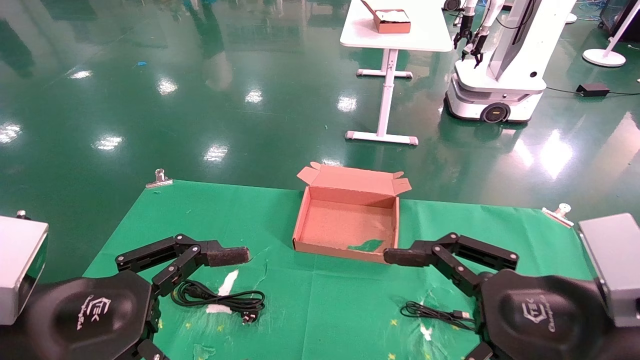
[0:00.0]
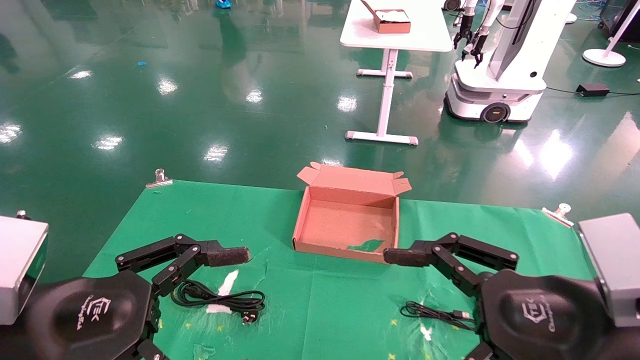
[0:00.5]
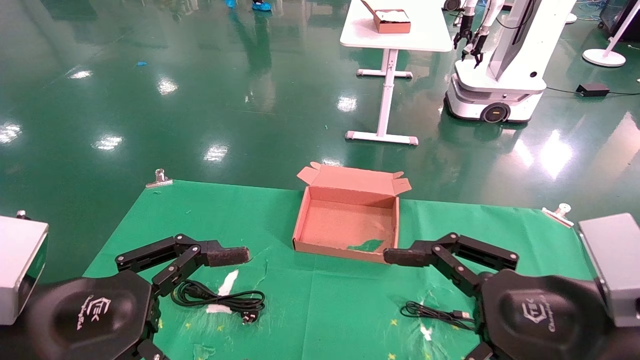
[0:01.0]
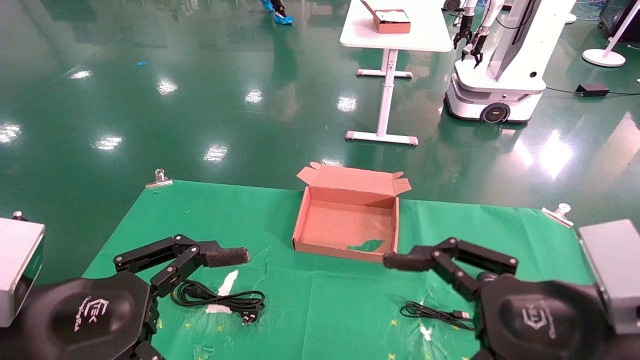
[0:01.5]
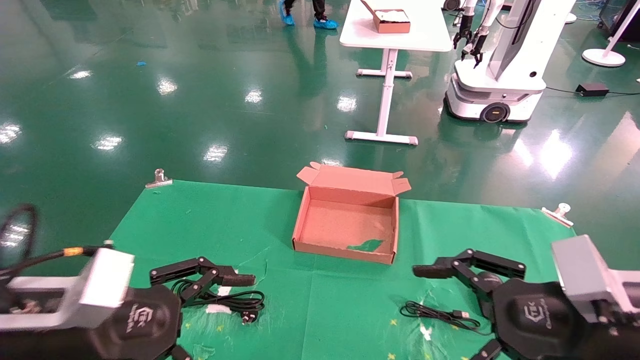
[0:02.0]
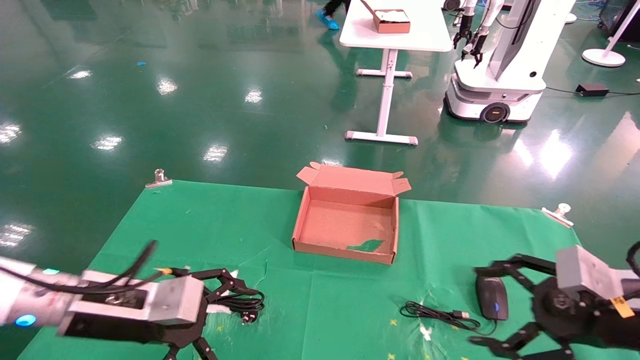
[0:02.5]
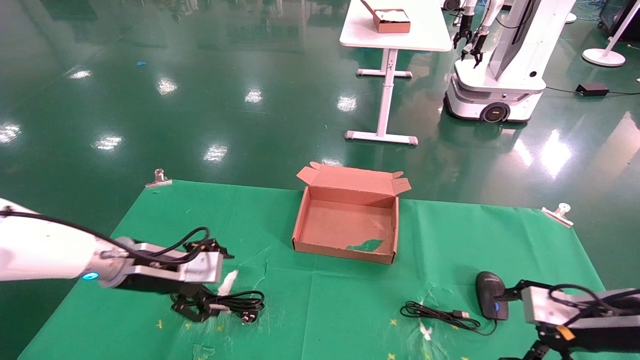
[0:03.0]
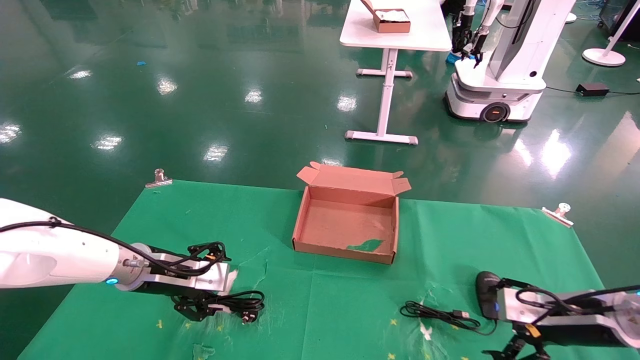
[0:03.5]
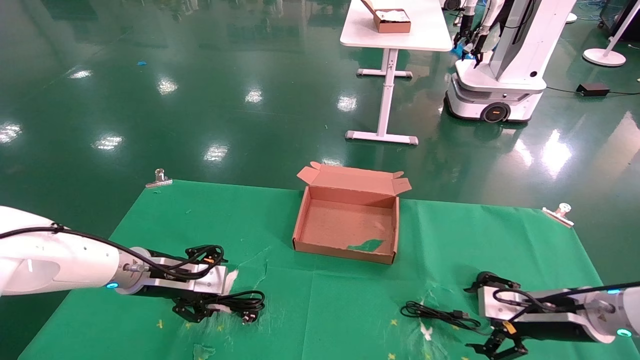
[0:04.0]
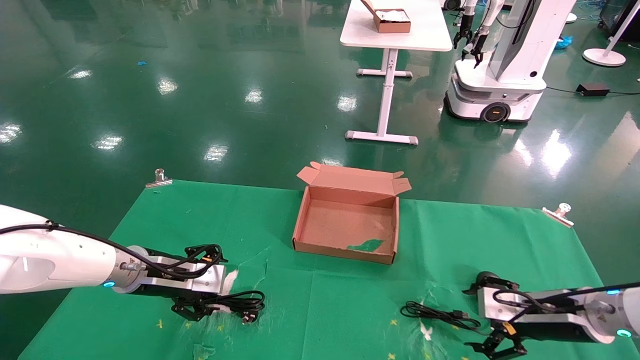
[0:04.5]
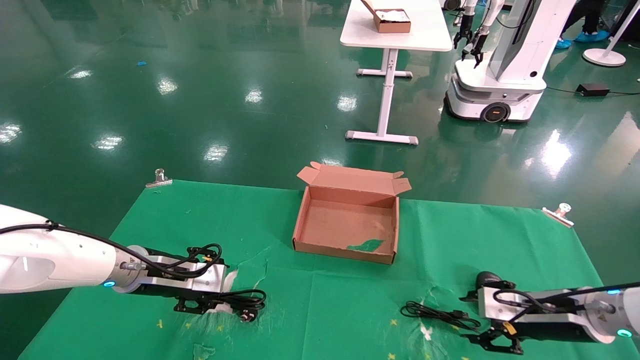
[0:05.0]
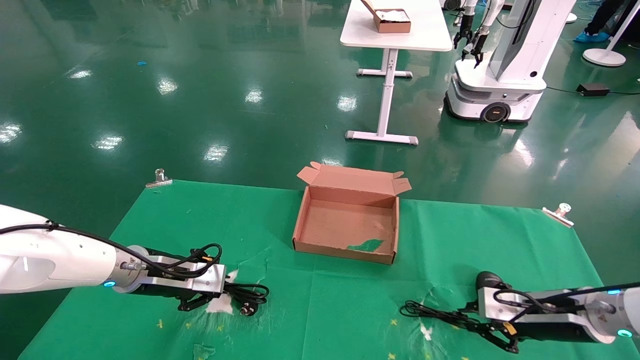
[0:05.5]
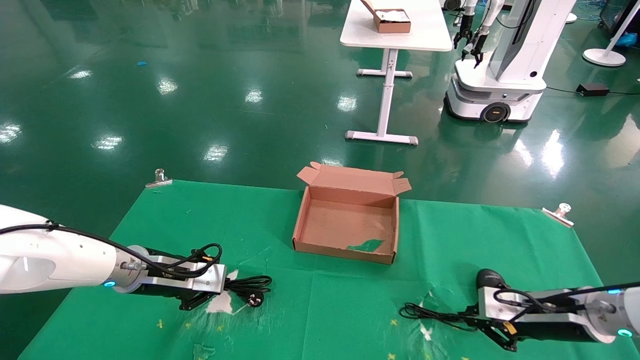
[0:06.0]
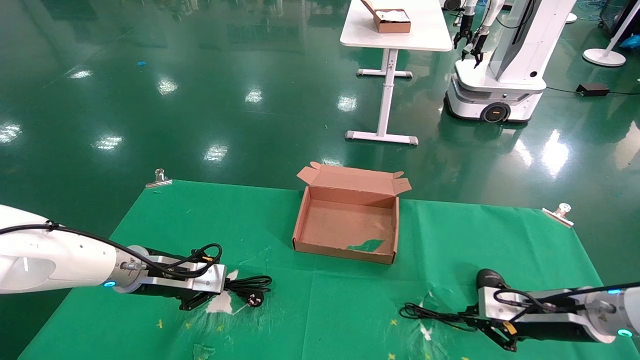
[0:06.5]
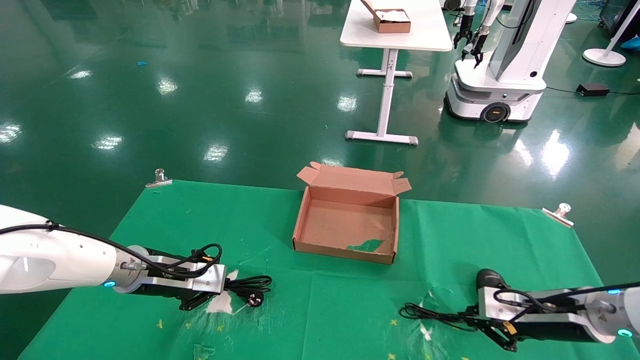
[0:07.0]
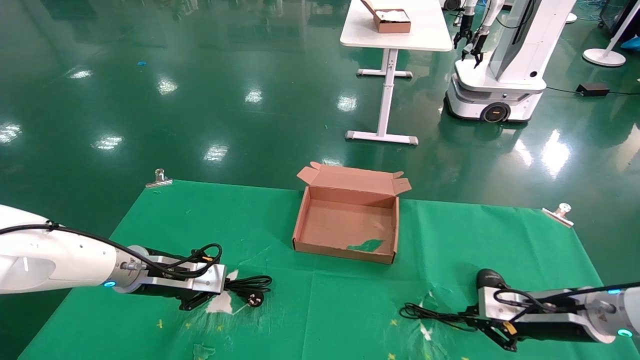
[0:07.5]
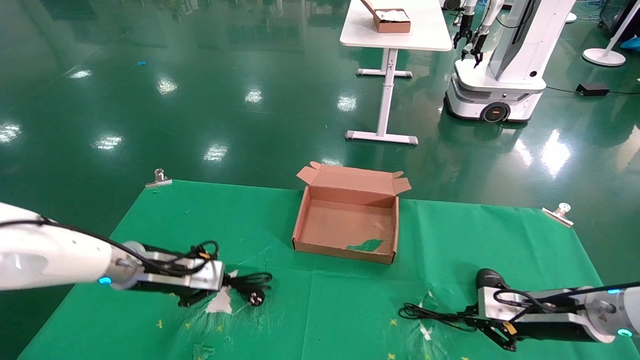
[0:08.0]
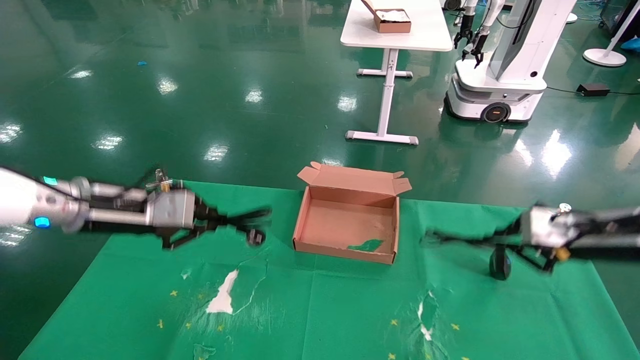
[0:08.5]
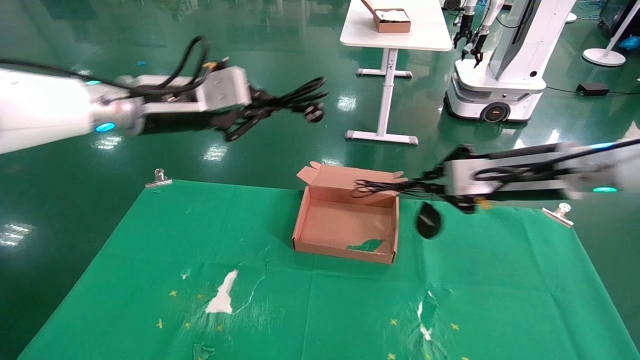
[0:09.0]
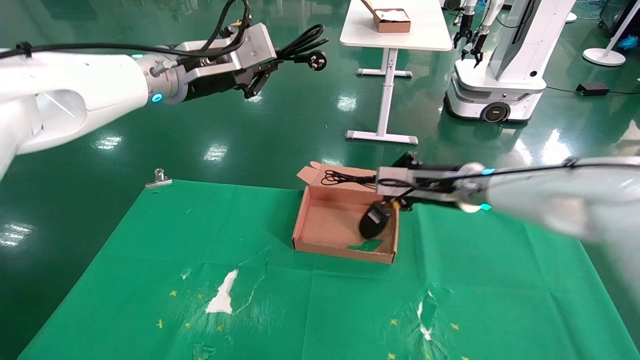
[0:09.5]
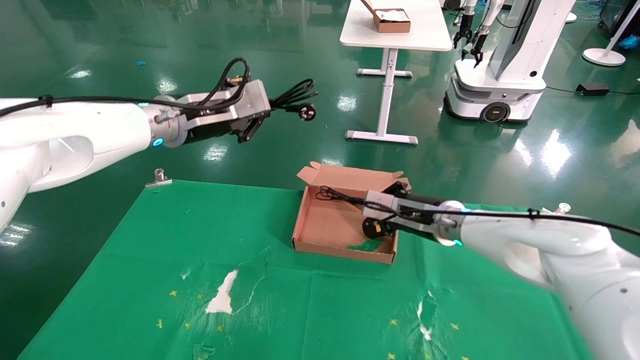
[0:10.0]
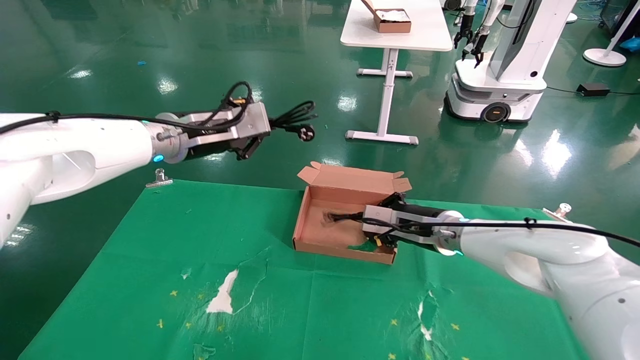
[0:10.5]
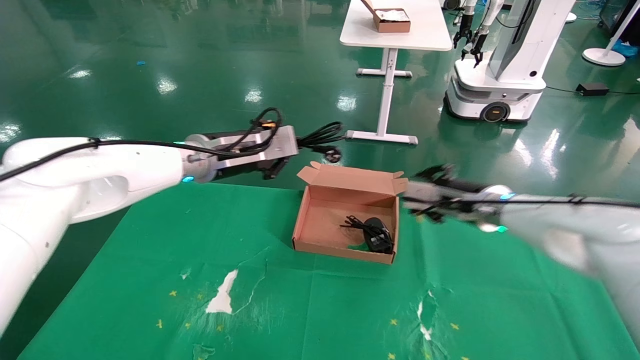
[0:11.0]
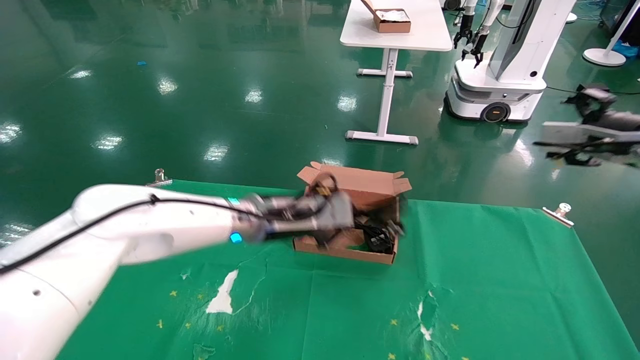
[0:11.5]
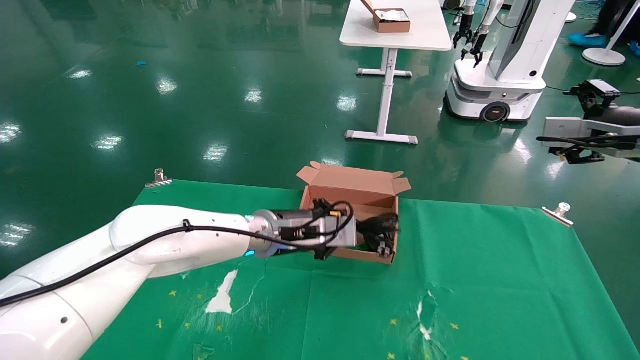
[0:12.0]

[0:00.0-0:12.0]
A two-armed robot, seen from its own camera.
Step, 0:02.5 to 0:06.0: Grab and lift both the mouse and power cord from the accessory packaging area at the same time.
0:00.0 to 0:02.0: The right gripper moves roughly 5 cm; the left gripper shifts some 5 cm forward.
0:02.0 to 0:04.0: The right gripper heads forward, downward and to the right, covering about 20 cm, while the left gripper shifts approximately 20 cm forward.
0:04.0 to 0:06.0: The left gripper closes its fingers. Meanwhile the right gripper closes its fingers.
0:06.0 to 0:08.0: The grippers stay close to where they were, moving slightly.
0:08.0 to 0:10.0: The left gripper travels upward and to the right by approximately 20 cm; the right gripper shifts roughly 20 cm to the left, forward and upward.
0:10.0 to 0:12.0: The left gripper is displaced downward and to the right by some 20 cm; the right gripper is displaced to the right and upward by roughly 30 cm, and opens up.

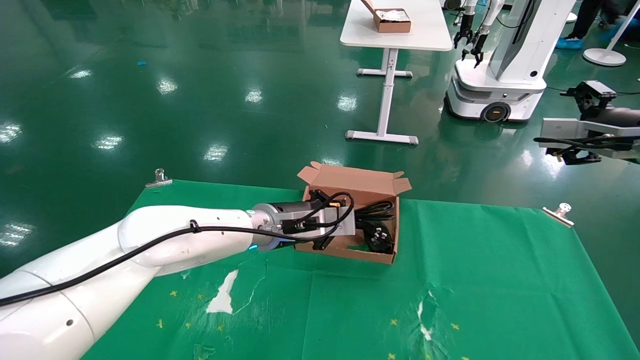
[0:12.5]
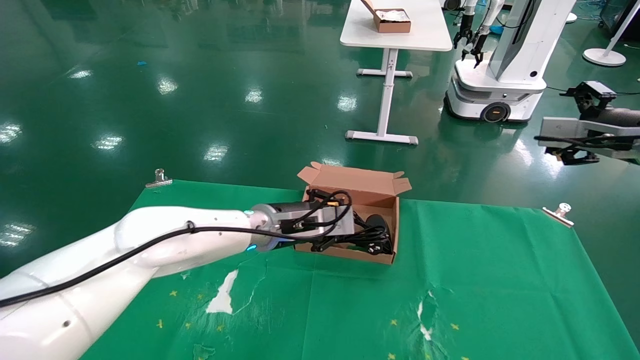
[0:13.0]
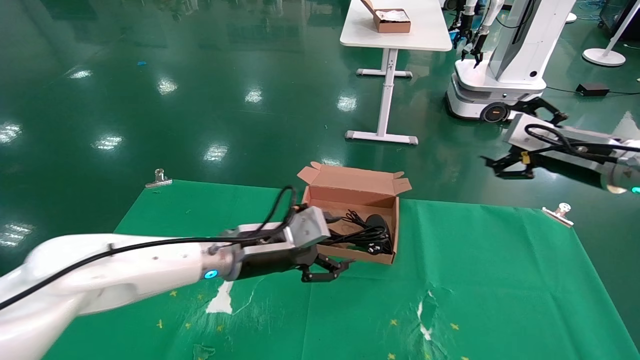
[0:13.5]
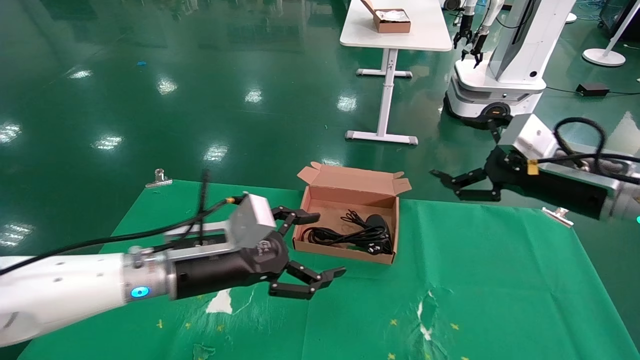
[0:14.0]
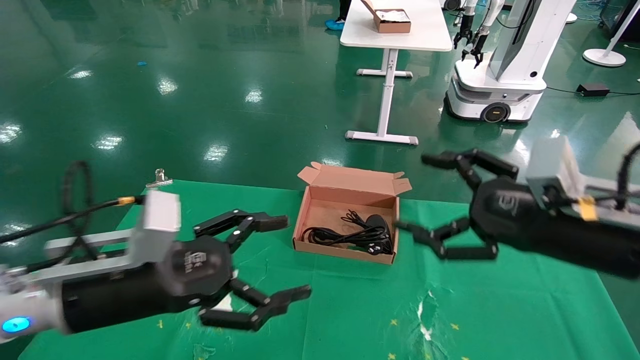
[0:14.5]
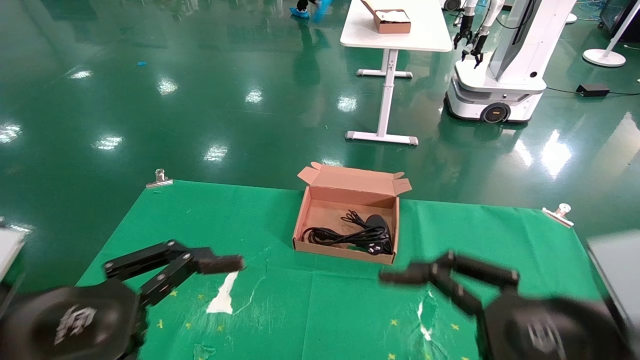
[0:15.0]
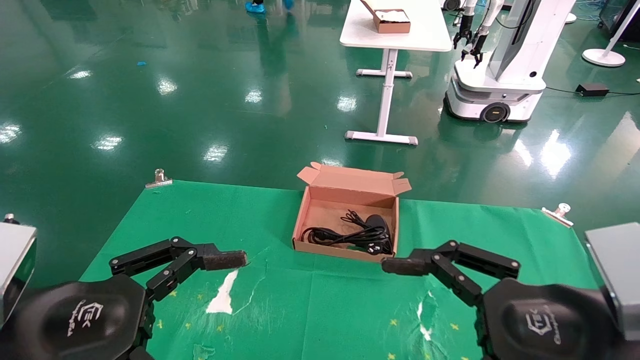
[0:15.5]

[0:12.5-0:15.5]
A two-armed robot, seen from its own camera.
0:12.5 to 0:14.0: The left gripper travels backward and to the left by about 15 cm, and opens. The right gripper travels to the left, backward and downward by some 15 cm.
0:14.0 to 0:15.5: Both grippers move backward and to the left, some 20 cm.

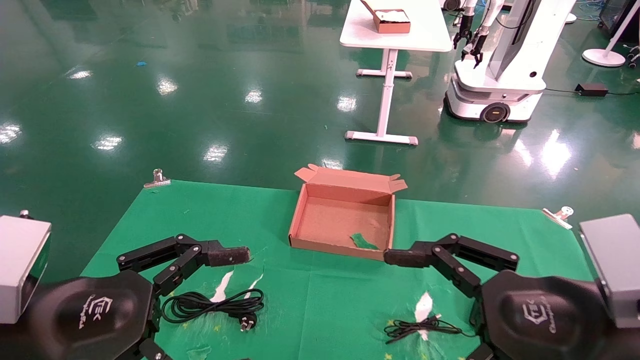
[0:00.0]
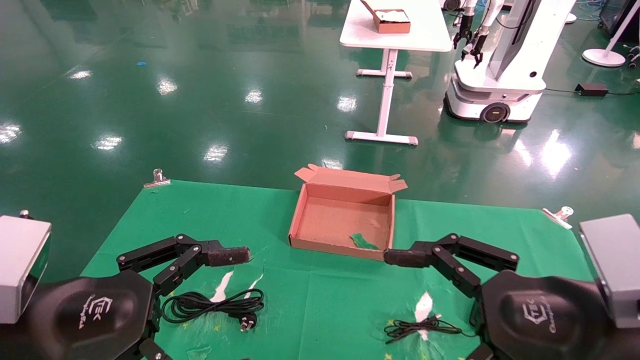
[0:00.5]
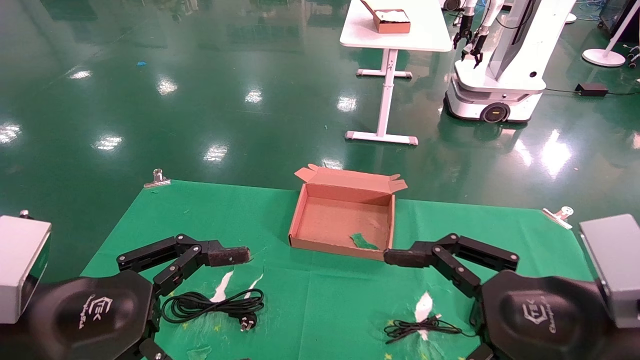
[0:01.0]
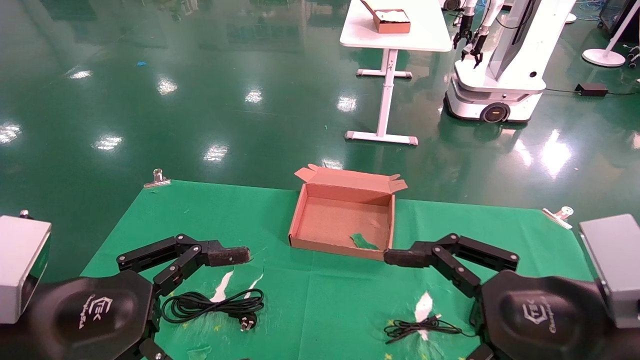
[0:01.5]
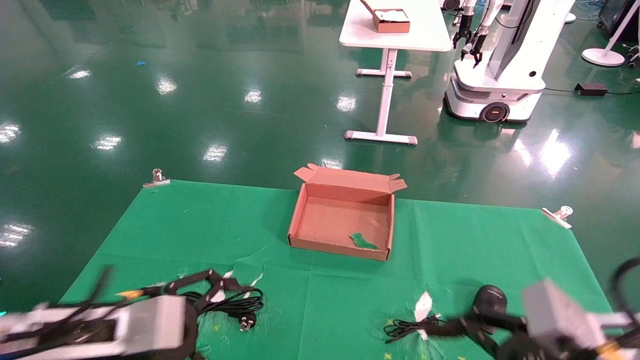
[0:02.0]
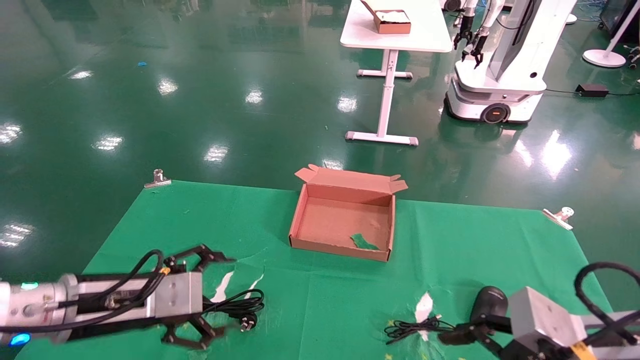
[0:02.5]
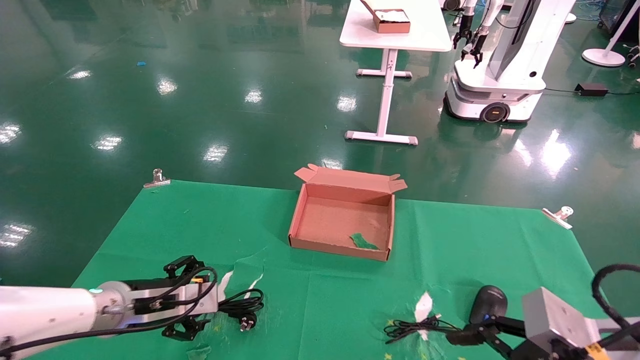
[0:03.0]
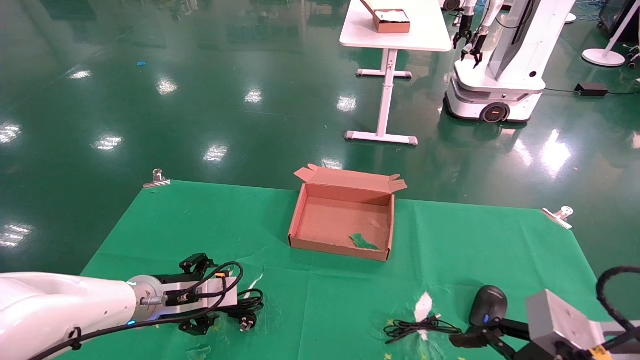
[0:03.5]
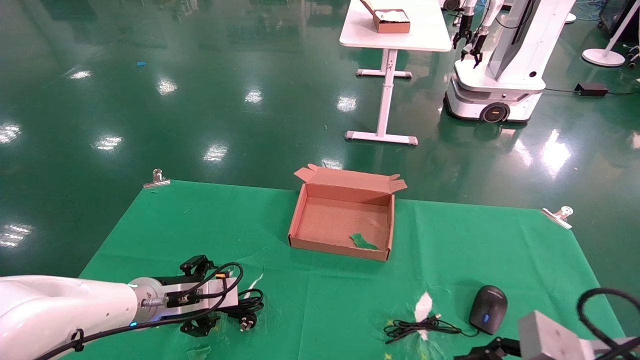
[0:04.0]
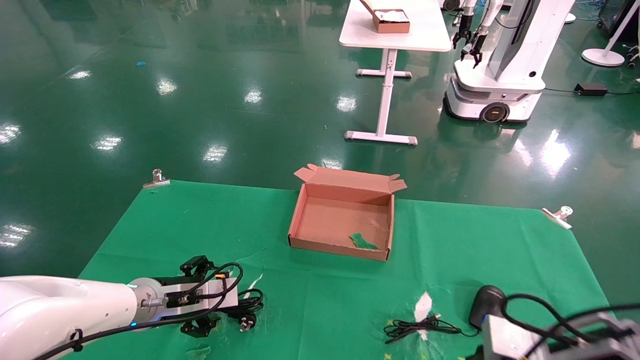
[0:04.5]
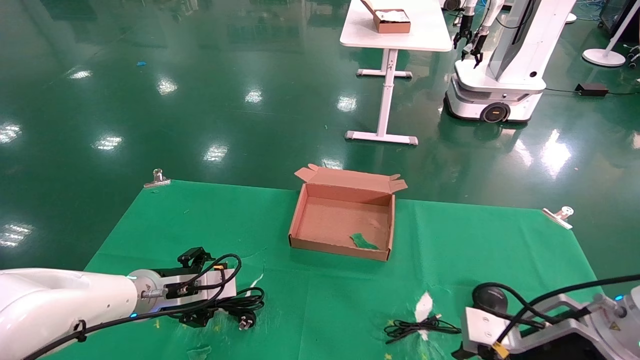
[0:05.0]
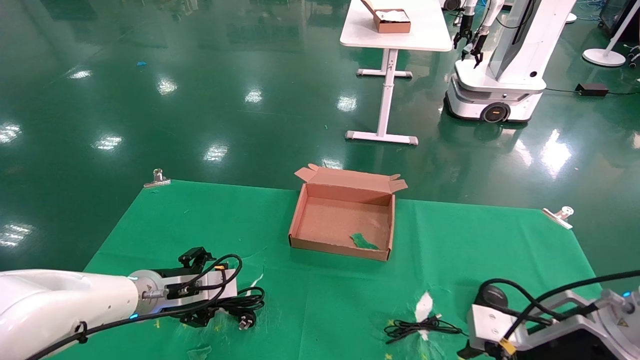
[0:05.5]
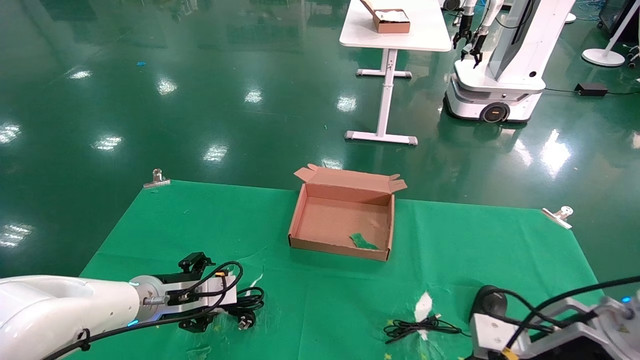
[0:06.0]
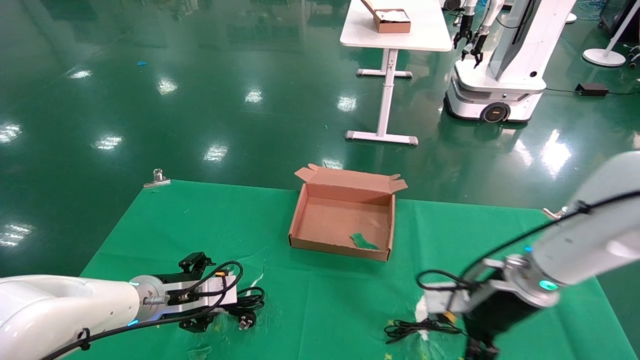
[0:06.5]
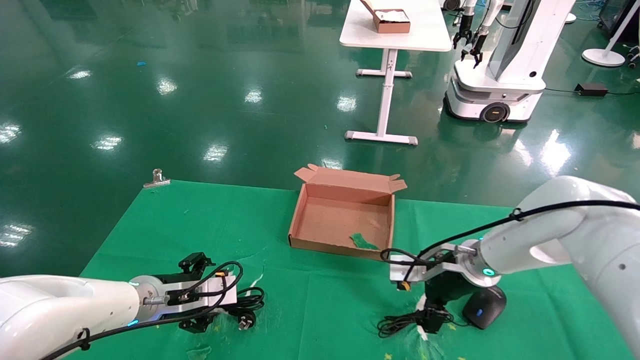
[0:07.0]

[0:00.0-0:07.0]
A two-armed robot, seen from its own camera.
0:00.0 to 0:02.0: The left gripper shifts approximately 10 cm forward and downward; the right gripper changes place by some 5 cm.
0:02.0 to 0:03.5: The left gripper goes roughly 15 cm forward and downward.
0:03.5 to 0:05.0: The right gripper heads forward, covering some 10 cm.
0:05.0 to 0:07.0: The right gripper moves forward and to the left, about 15 cm.
